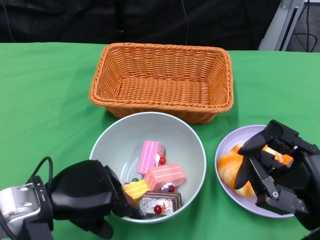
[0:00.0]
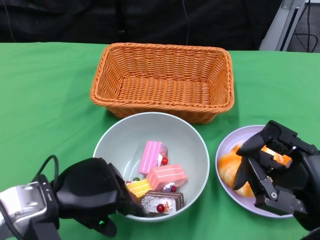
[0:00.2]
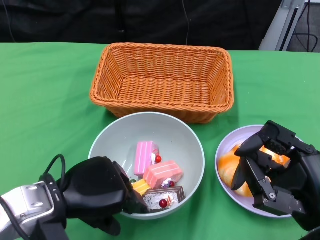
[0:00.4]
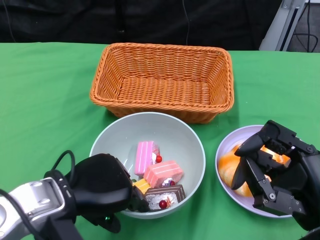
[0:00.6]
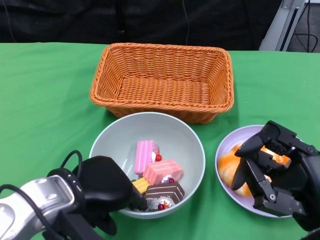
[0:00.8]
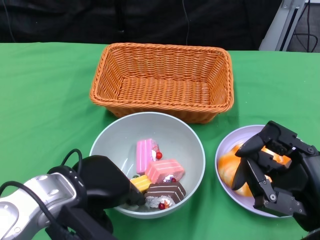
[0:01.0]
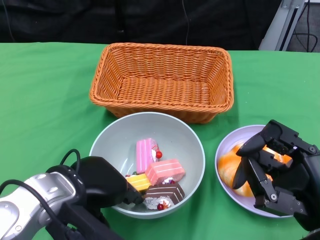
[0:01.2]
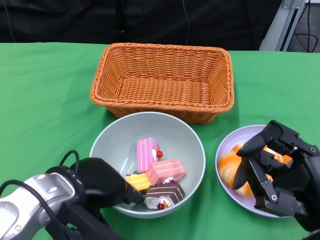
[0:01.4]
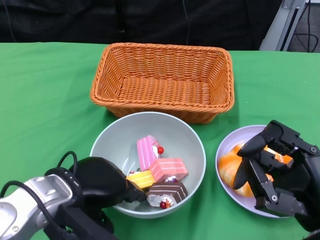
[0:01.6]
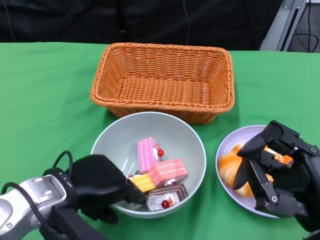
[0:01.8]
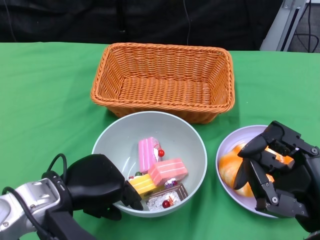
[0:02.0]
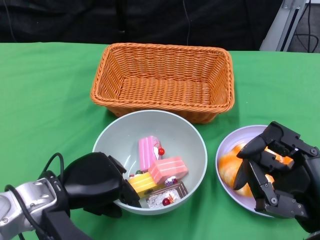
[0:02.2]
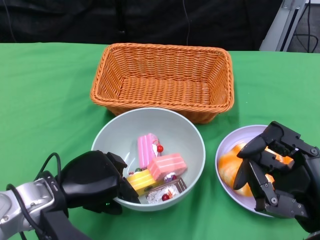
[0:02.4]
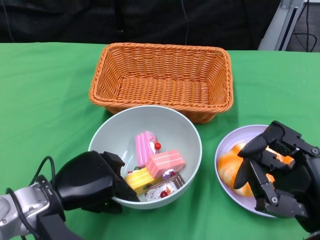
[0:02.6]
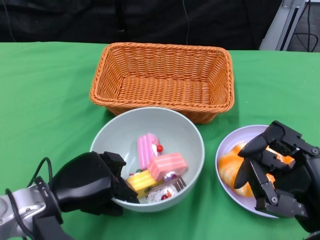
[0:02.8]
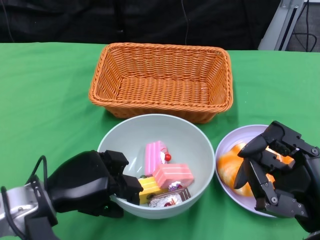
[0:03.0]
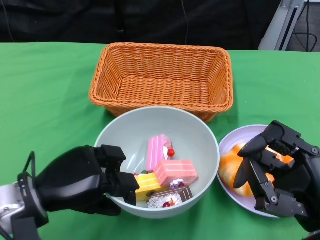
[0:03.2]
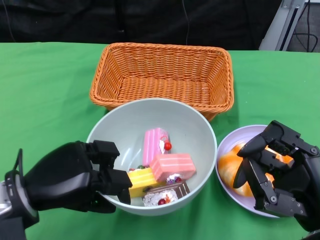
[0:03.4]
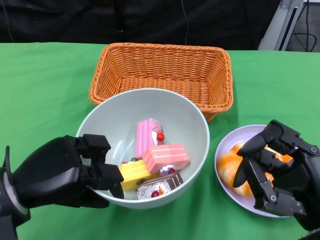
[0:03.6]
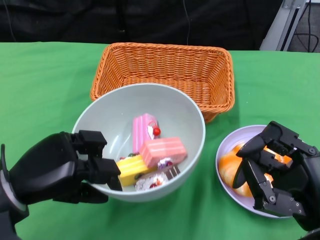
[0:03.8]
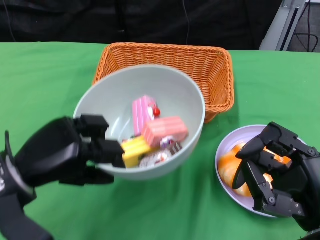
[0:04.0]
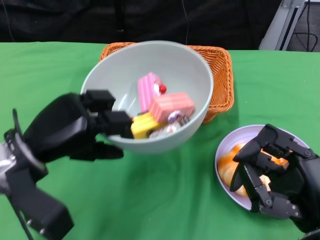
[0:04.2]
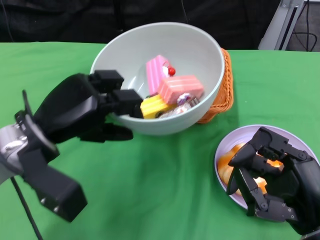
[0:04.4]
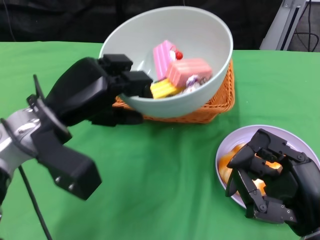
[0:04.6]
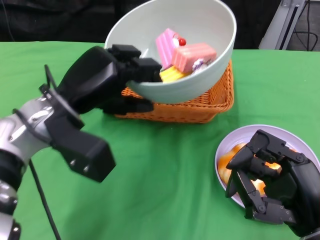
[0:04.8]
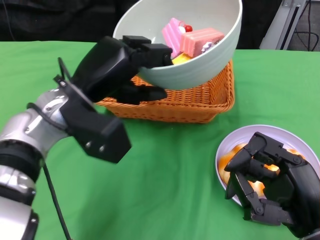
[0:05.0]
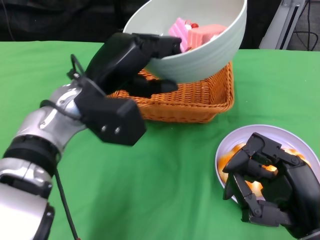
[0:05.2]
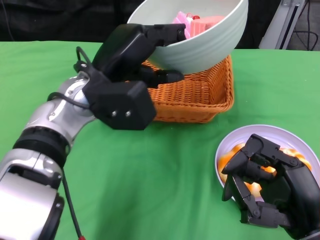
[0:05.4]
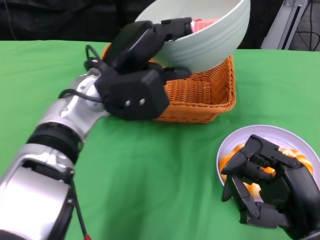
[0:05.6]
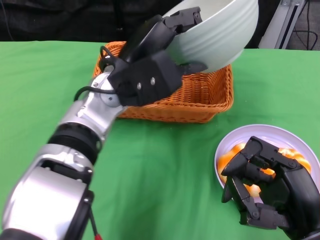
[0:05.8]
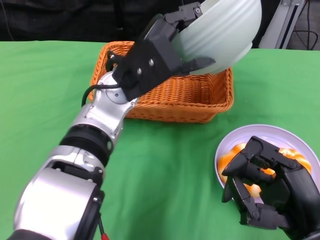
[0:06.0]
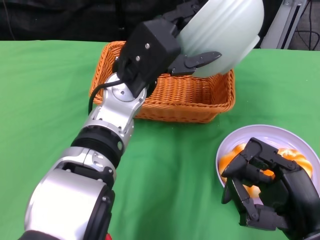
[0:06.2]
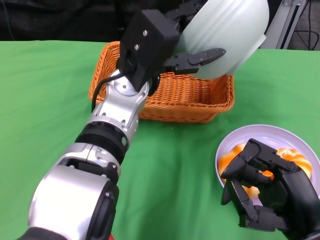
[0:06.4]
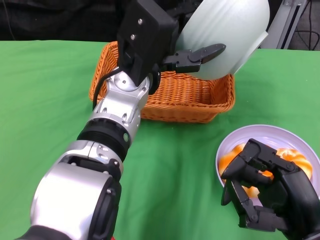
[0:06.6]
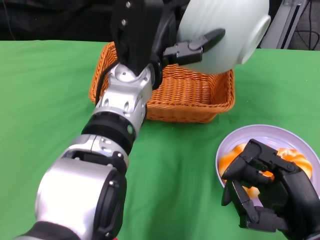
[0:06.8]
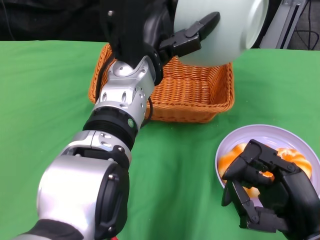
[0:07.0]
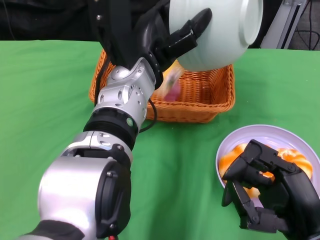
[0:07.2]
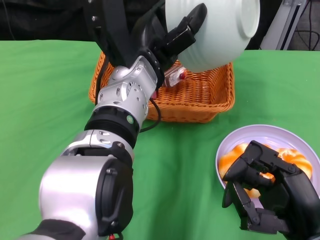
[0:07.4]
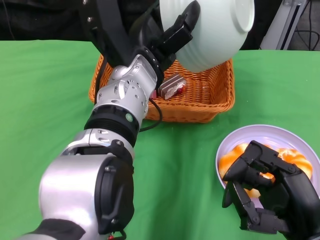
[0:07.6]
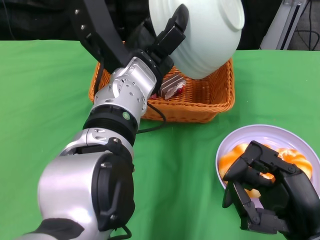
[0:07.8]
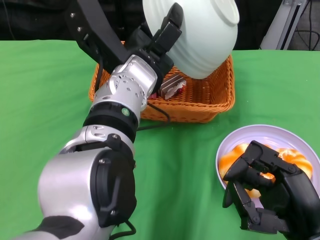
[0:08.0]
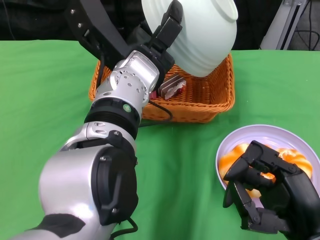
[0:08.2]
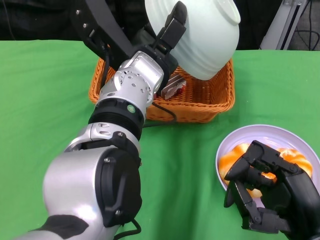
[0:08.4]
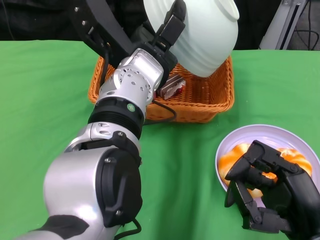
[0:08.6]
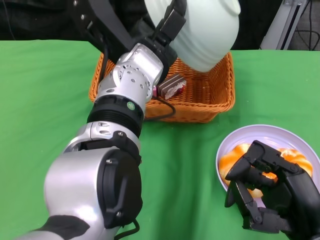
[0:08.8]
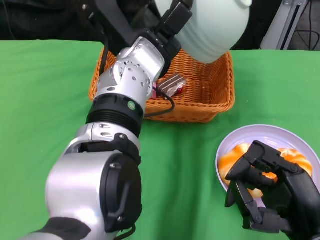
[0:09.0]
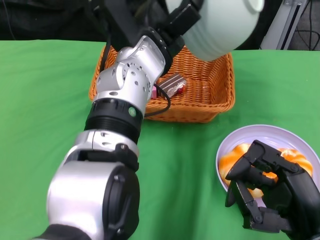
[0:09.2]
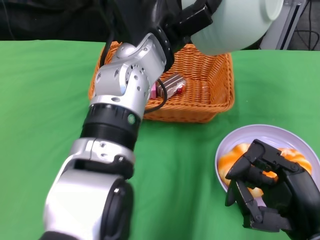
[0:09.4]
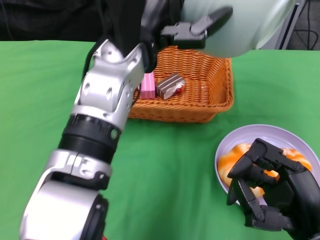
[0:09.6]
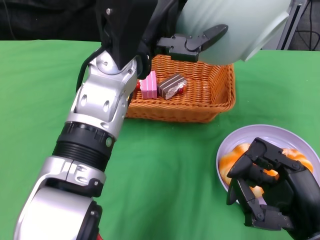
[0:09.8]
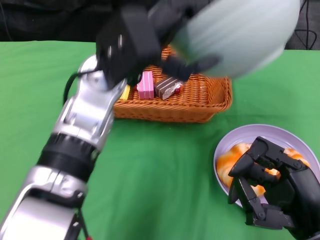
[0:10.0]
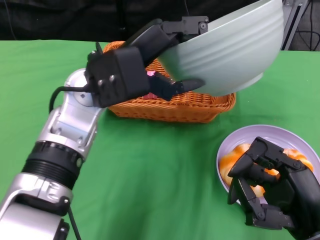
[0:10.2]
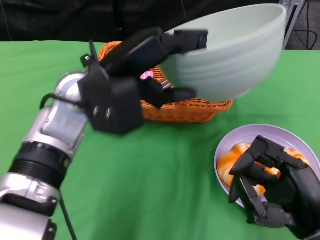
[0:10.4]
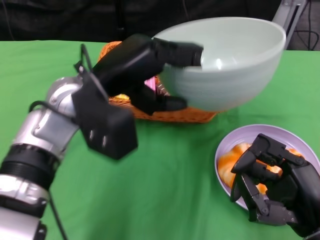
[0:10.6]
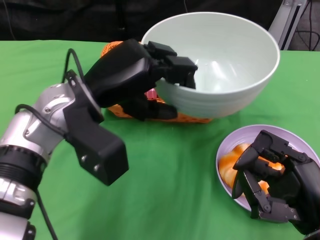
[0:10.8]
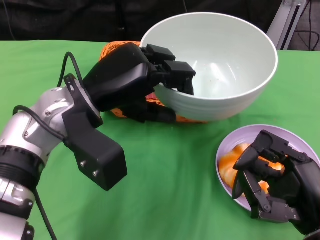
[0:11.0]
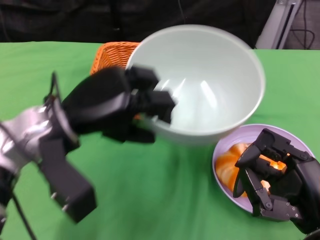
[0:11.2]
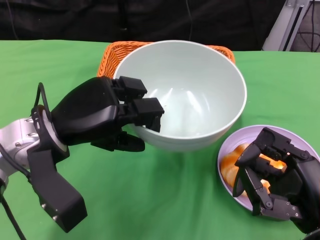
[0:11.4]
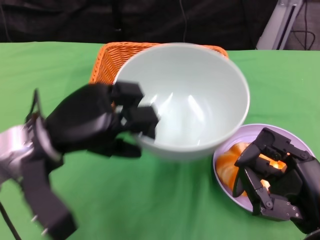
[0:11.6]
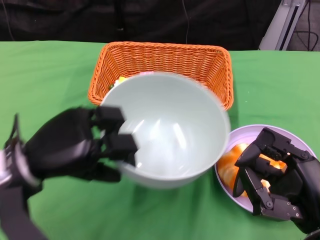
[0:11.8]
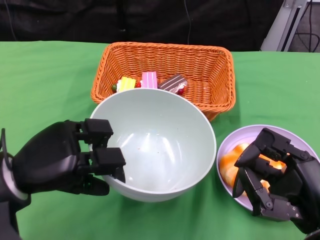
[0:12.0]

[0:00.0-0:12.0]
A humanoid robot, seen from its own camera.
Step, 0:00.0 to 0:02.0: Grasp the bowl with the left gripper.
Step, 0:02.2 to 0:09.0: Pour the cake into the basket with the left gripper.
0:01.6 to 0:03.0: The left hand shifts by about 5 cm.
0:03.0 to 0:04.4: The left hand goes approximately 5 cm upward.
0:04.4 to 0:06.0: The left hand moves to the right and forward, some 15 cm.
0:09.0 to 0:10.4: The left hand shifts approximately 10 cm to the left.
0:10.4 to 0:12.0: The left hand shifts roughly 15 cm to the left, downward and backward.

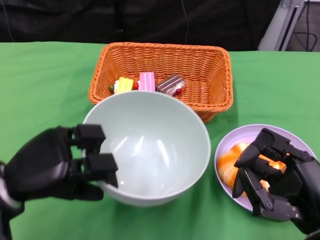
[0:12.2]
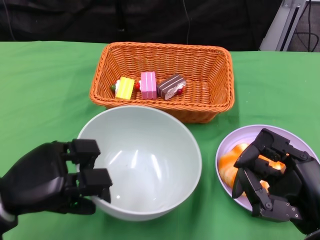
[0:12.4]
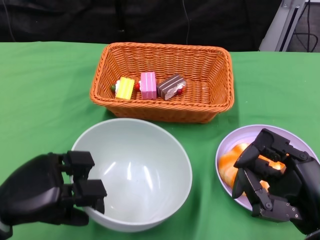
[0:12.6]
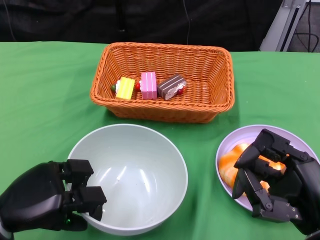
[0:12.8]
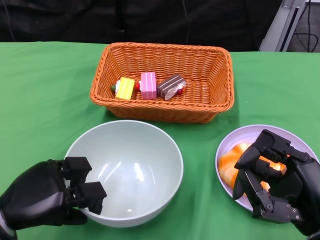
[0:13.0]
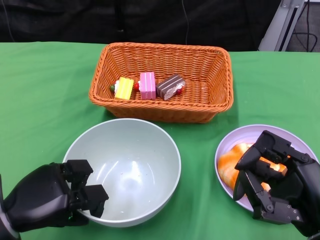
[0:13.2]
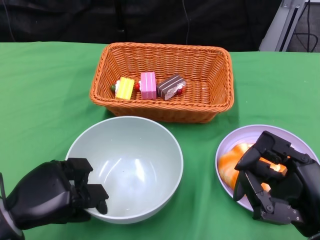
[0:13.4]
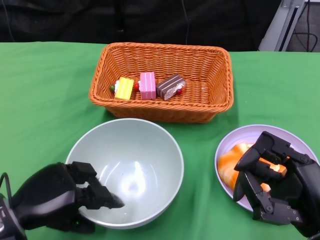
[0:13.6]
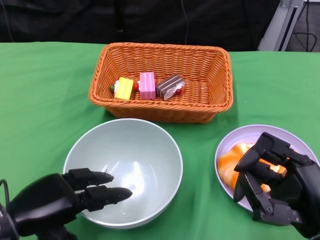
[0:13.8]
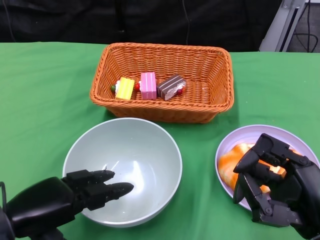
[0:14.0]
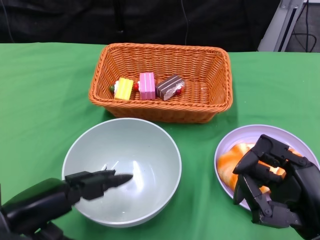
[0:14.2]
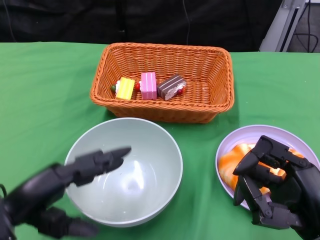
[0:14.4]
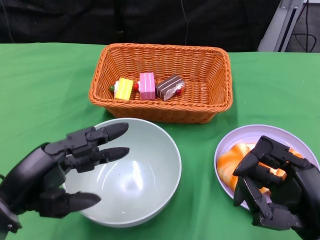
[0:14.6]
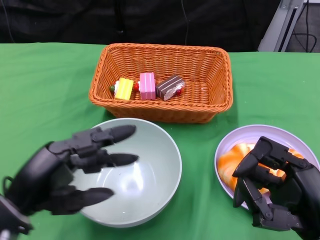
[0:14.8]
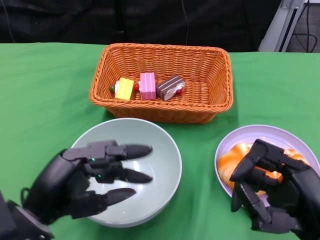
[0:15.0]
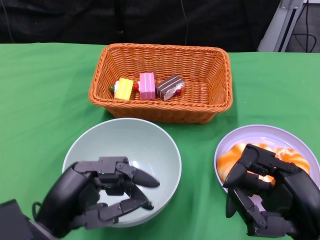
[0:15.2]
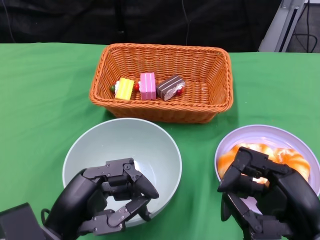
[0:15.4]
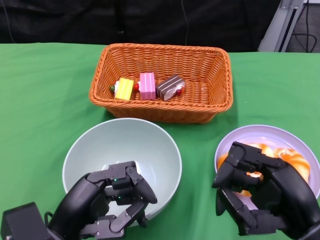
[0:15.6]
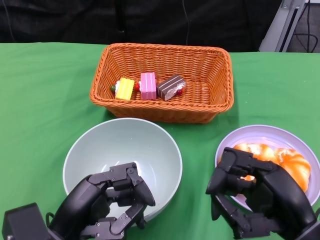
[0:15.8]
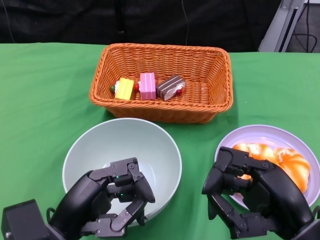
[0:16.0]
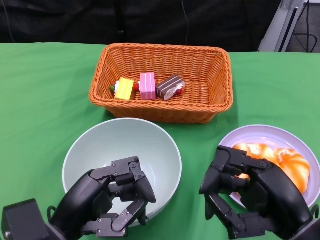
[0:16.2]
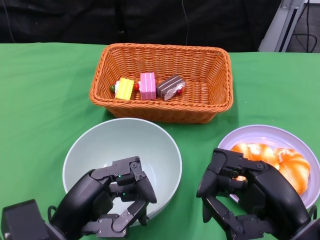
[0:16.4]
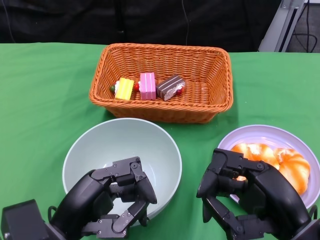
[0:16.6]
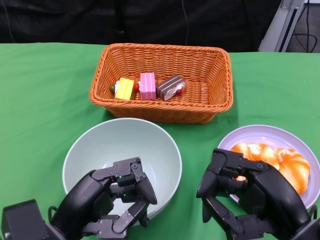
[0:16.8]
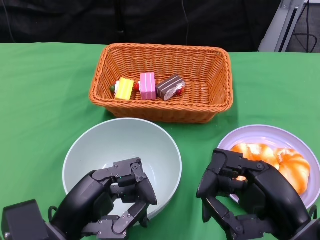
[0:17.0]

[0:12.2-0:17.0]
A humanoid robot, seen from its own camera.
0:12.2 to 0:13.8: The left hand shifts by some 5 cm.
0:13.8 to 0:15.4: The left hand is displaced to the right by some 5 cm.
0:15.4 to 0:17.0: There are only small adjustments of the hands.
